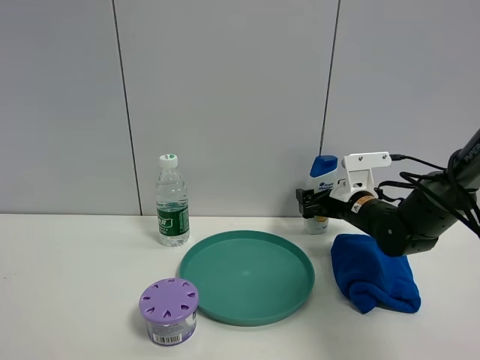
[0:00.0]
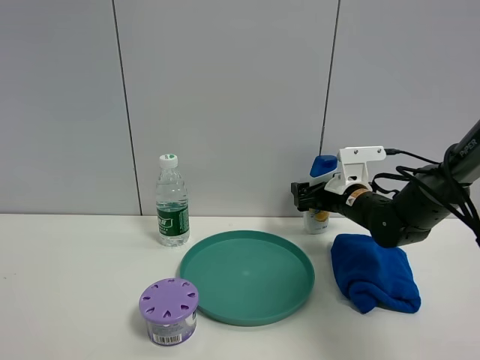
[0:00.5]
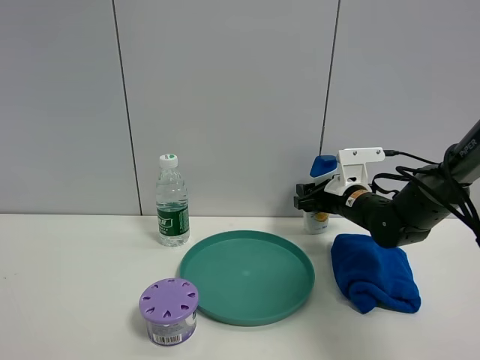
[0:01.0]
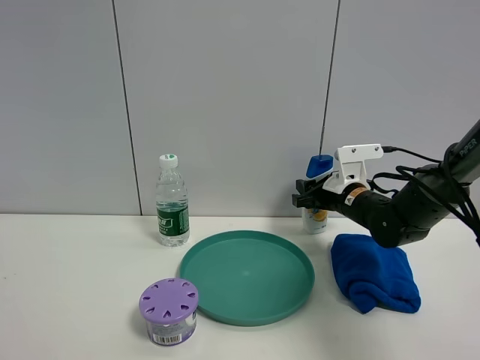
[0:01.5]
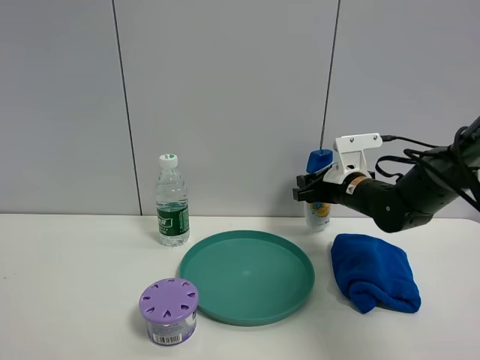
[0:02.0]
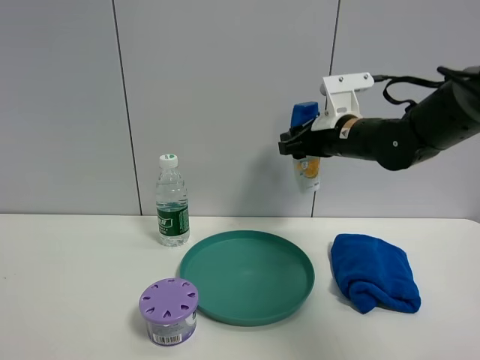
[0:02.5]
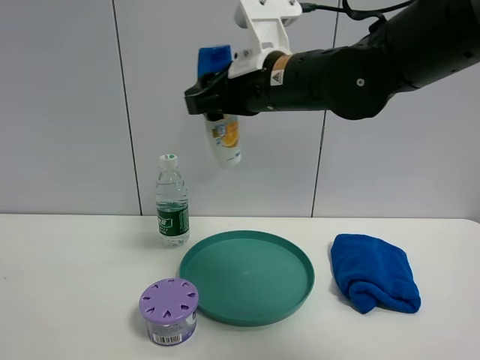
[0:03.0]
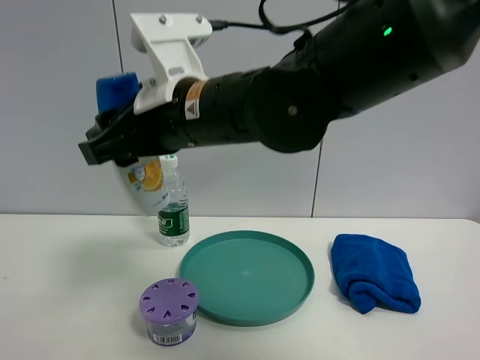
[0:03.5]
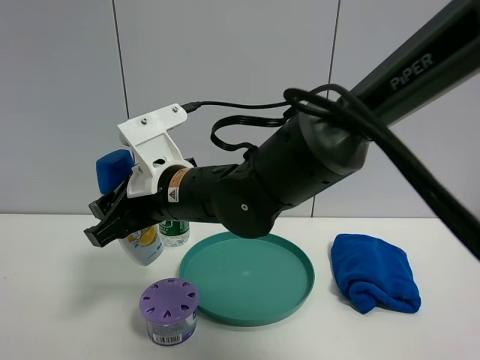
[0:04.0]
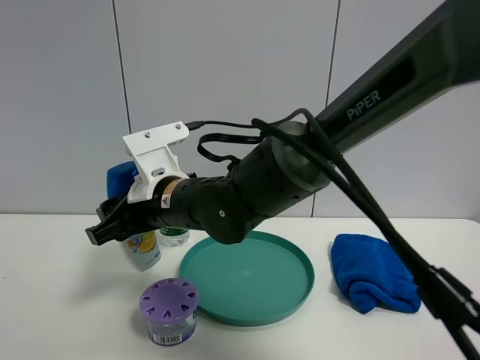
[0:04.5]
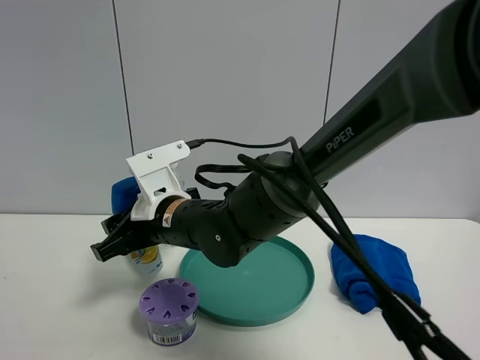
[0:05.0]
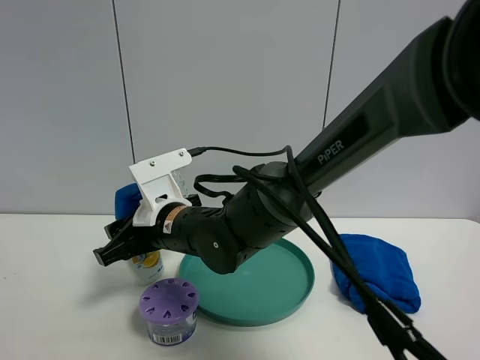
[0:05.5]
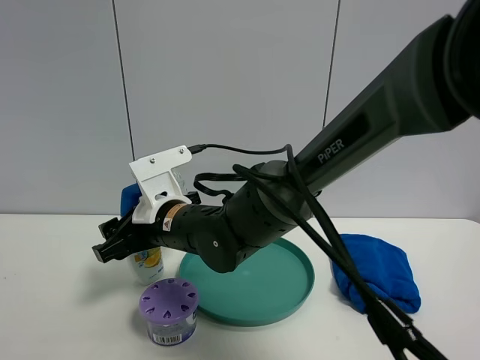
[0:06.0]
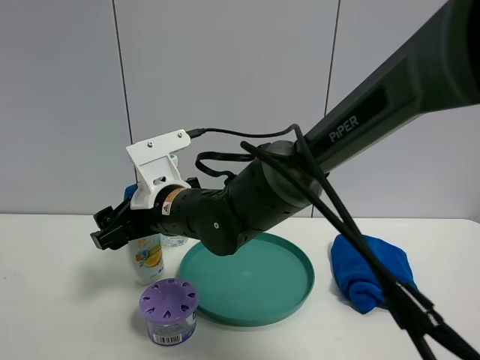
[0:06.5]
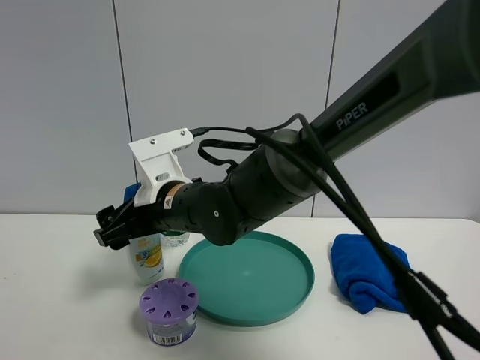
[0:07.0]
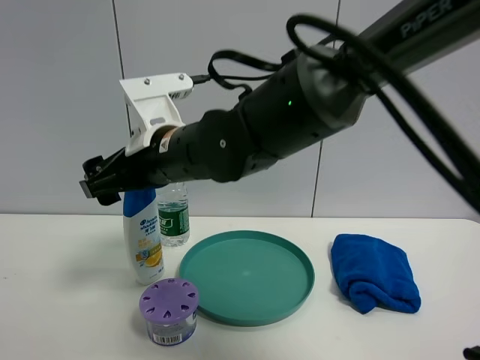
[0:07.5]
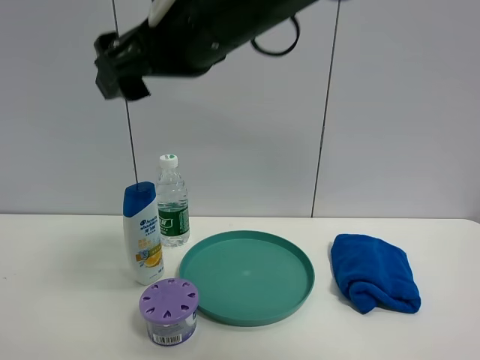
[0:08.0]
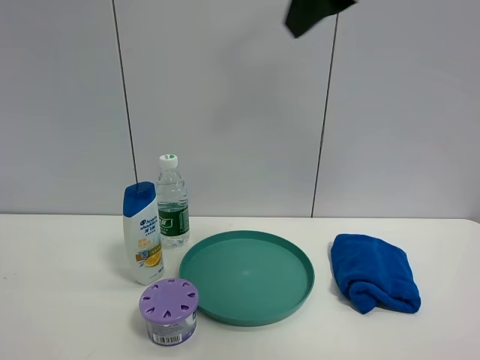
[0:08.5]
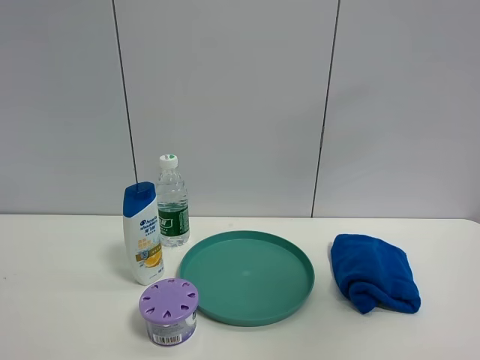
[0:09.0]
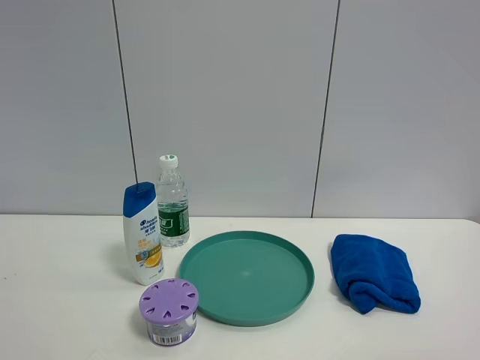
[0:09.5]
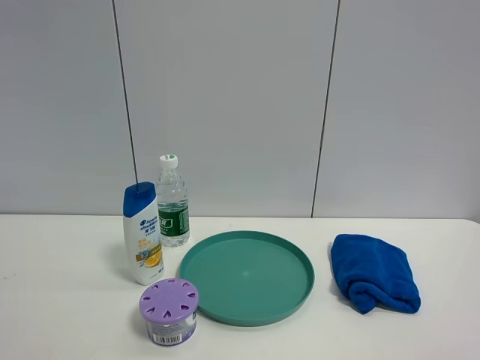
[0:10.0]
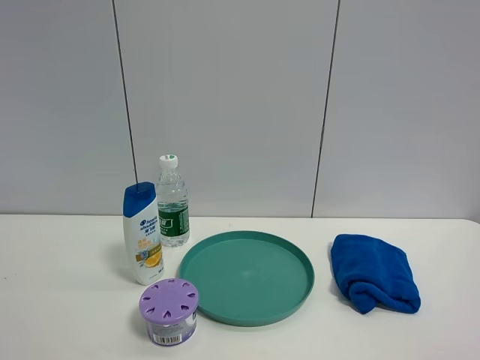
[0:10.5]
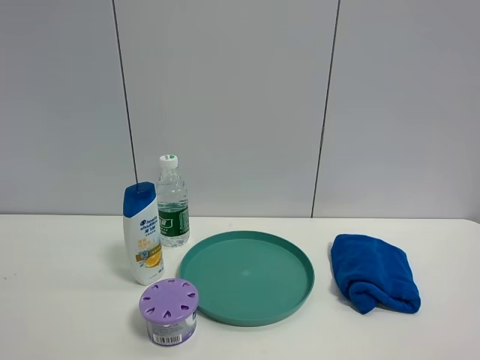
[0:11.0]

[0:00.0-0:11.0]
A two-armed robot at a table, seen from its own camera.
Task of the whole recording: the gripper move the object.
Step, 0:01.5 to 0:07.0: Place the shampoo on the table with the right gripper.
0:00.0 to 0:02.0: The right gripper closes its fingers.
0:02.0 to 0:03.5: The right gripper moves to the left, backward and upward, approximately 30 cm.
0:03.5 to 0:05.5: The right gripper shifts roughly 15 cm downward.
0:05.5 to 0:07.5: The right gripper goes roughly 10 cm upward, and opens.
0:07.5 to 0:09.0: The right gripper is displaced to the right, upward and backward by roughly 40 cm.
0:09.0 to 0:11.0: The right gripper travels backward and downward by about 20 cm.

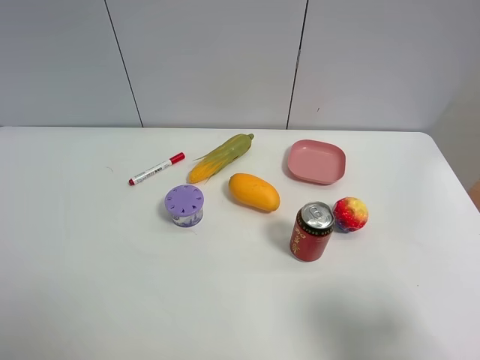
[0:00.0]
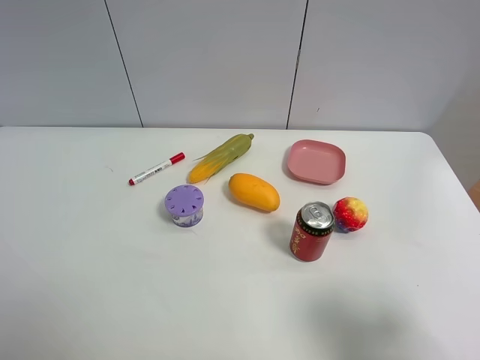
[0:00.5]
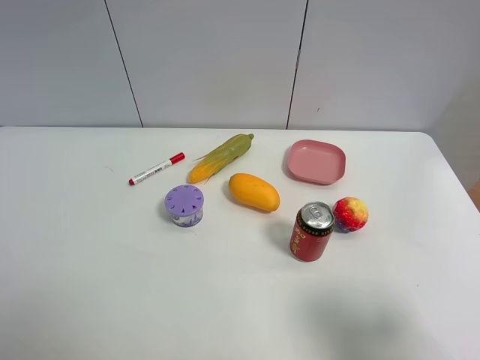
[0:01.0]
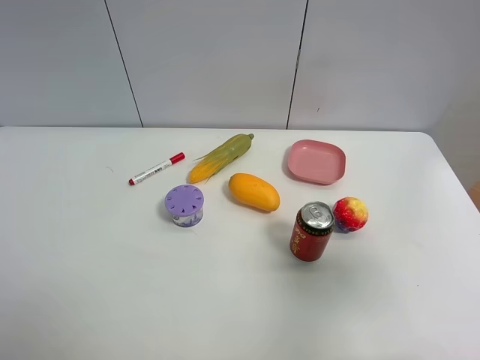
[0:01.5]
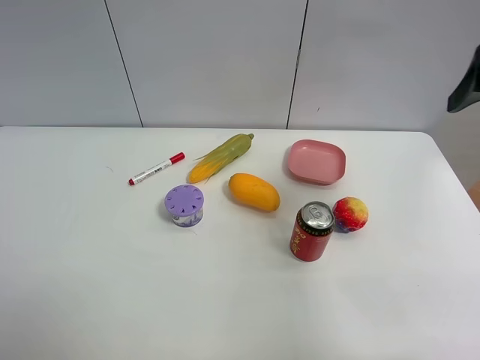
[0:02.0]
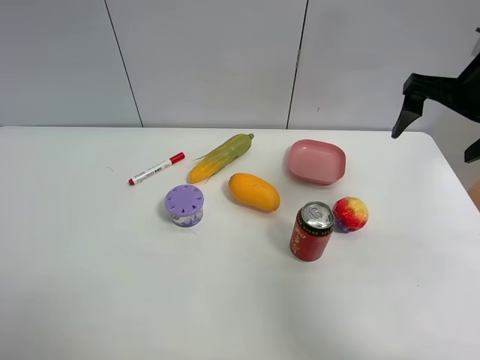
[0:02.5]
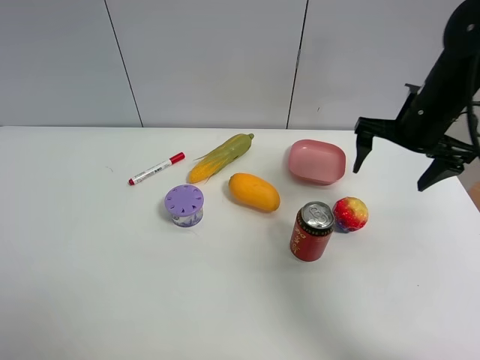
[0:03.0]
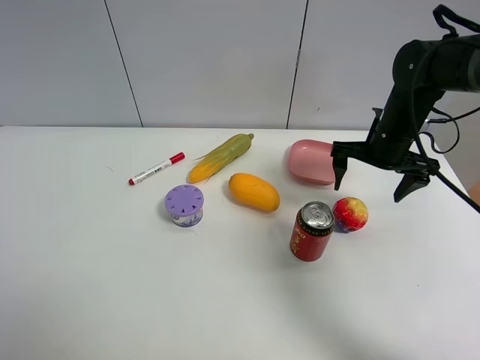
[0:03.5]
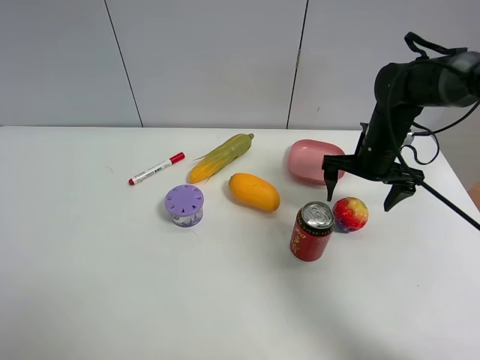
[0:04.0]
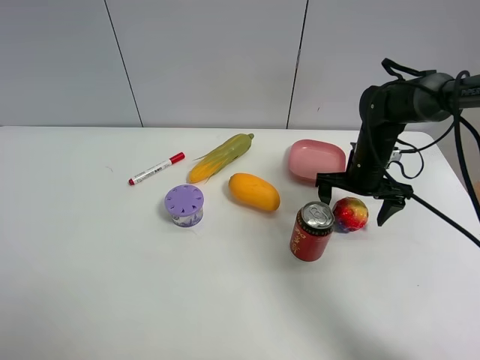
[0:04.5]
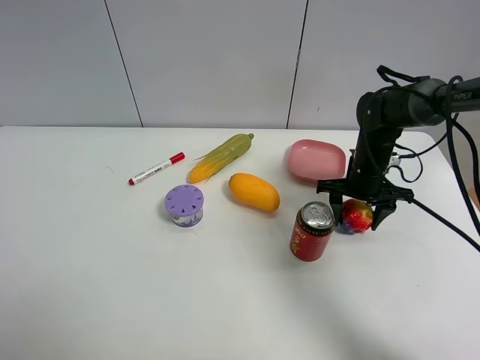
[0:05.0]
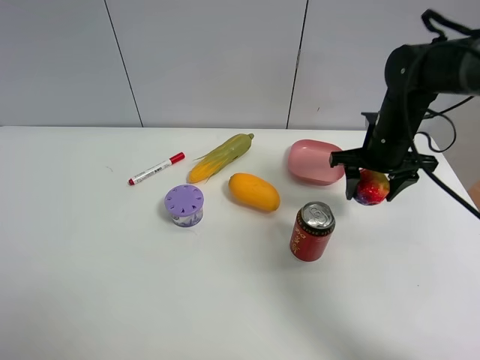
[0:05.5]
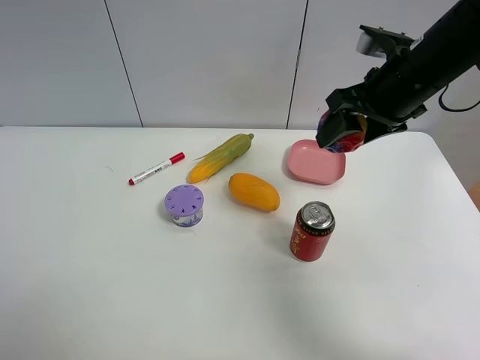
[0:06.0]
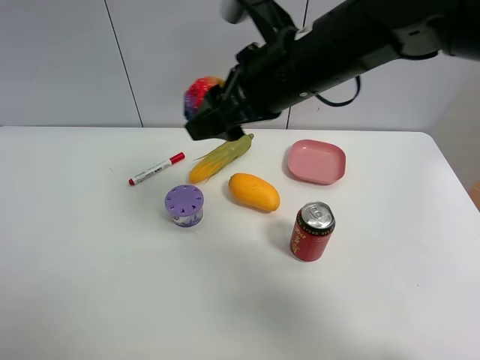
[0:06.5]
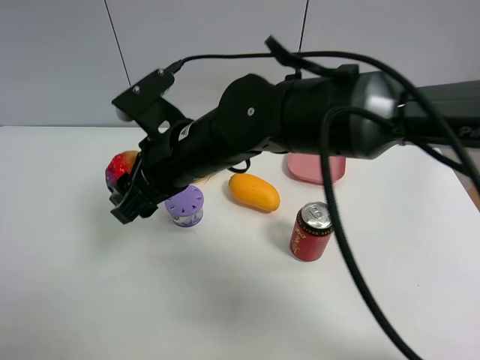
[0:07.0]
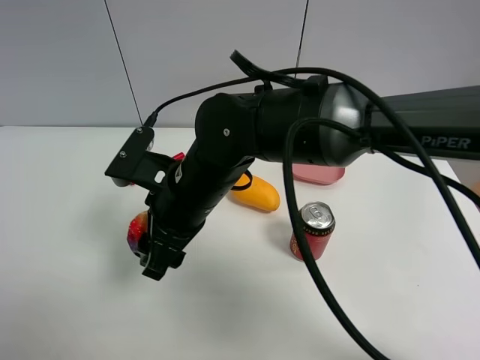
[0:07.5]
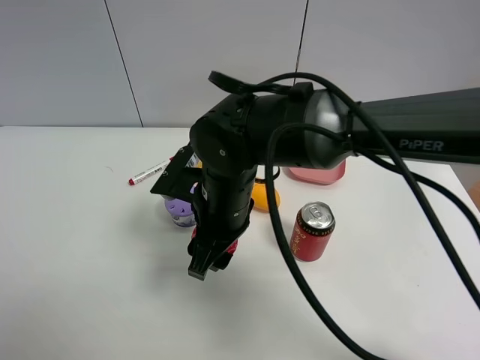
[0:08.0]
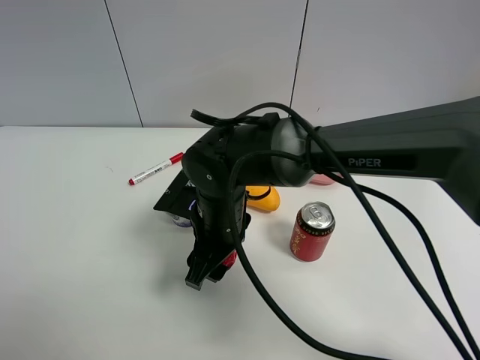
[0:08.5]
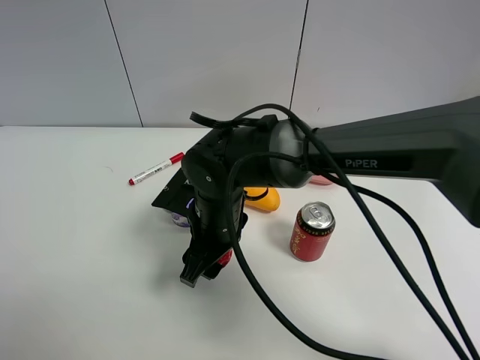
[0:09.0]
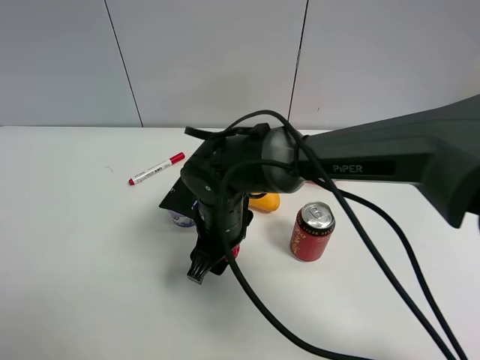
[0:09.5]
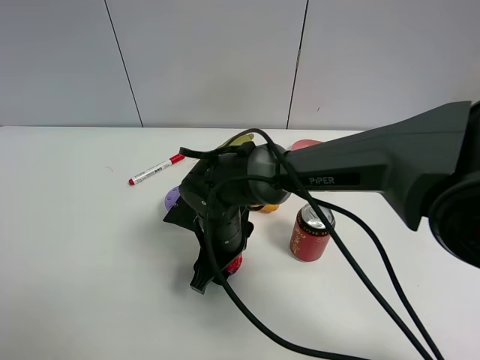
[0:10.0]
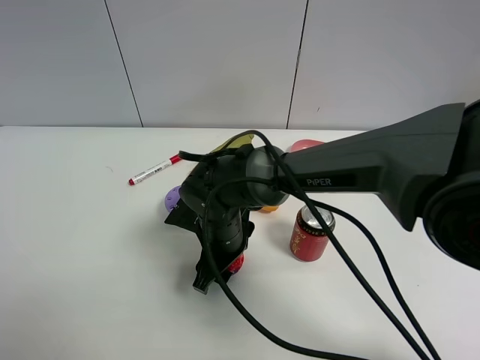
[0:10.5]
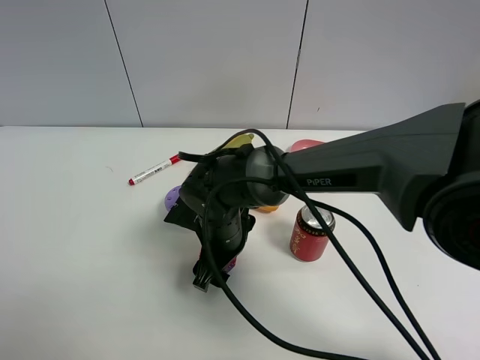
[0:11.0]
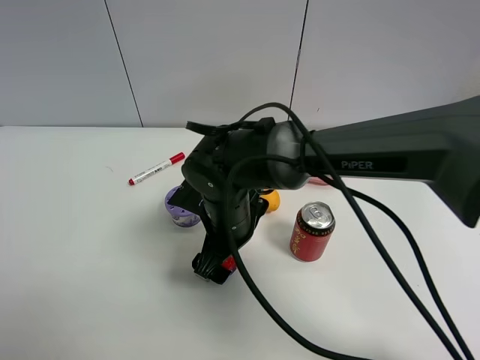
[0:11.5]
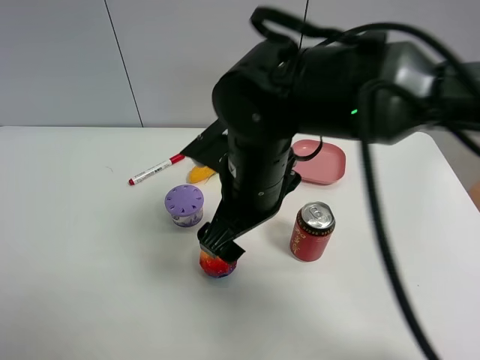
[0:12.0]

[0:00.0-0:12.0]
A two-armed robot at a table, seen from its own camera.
Task of the whole recording: the gripper move the object.
Step, 0:00.0 to 0:04.5: Grasp the colorful ball with the right gripper.
Step, 0:05.0 to 0:12.0: Place the colorful ball on the table with the right gripper.
0:00.0 to 0:02.0: The right gripper is displaced forward and upward by approximately 25 cm.
0:02.0 to 0:04.0: The right gripper travels downward and forward by about 25 cm.
0:04.0 to 0:06.0: The right gripper heads upward, covering some 15 cm, and closes its fingers.
0:06.0 to 0:08.0: The right gripper heads to the left and downward, covering approximately 25 cm.
0:08.0 to 0:10.0: The right gripper shifts some 10 cm downward.
0:10.0 to 0:12.0: The right gripper is displaced upward by approximately 15 cm, and opens up.

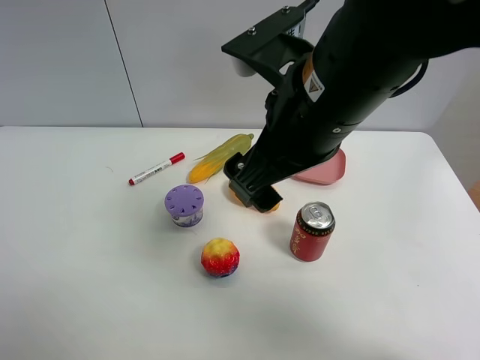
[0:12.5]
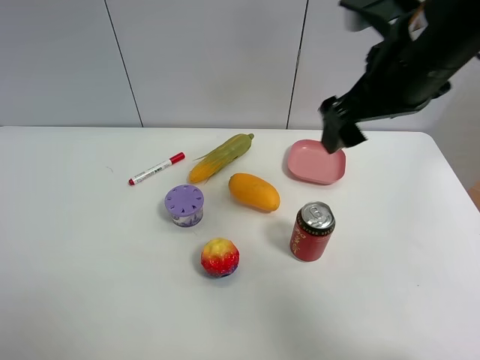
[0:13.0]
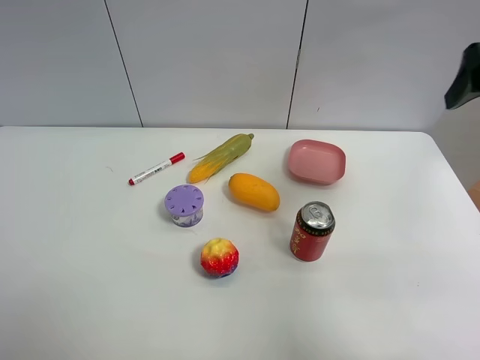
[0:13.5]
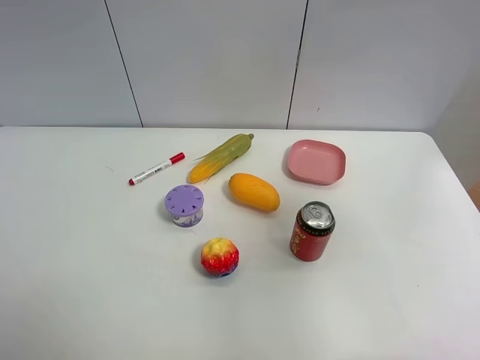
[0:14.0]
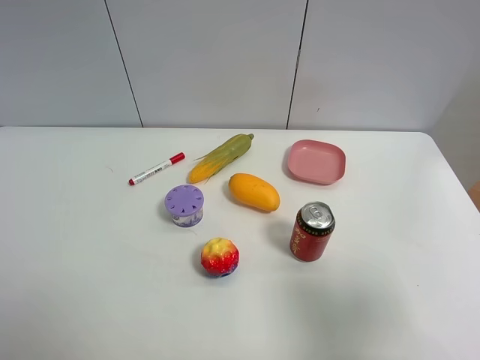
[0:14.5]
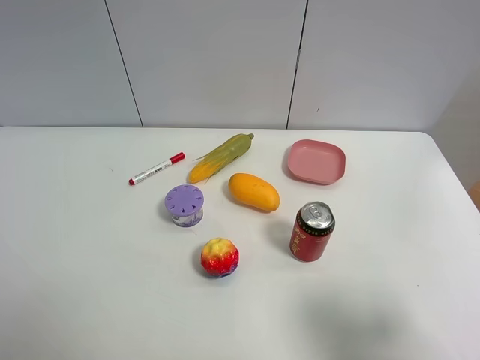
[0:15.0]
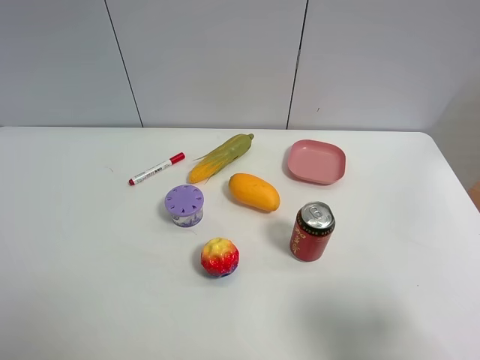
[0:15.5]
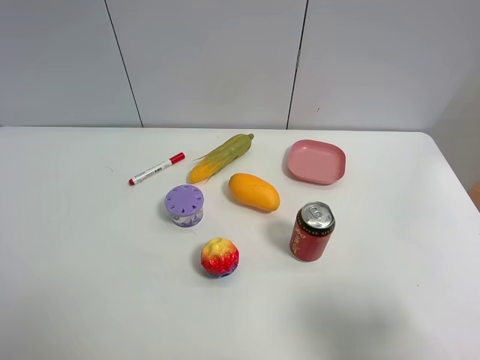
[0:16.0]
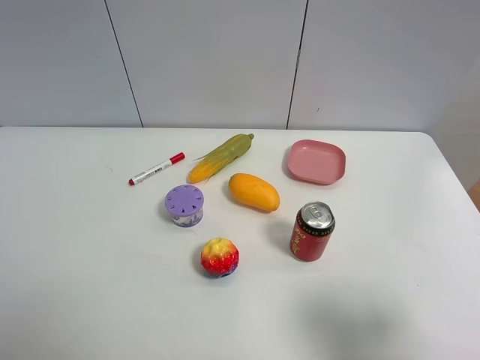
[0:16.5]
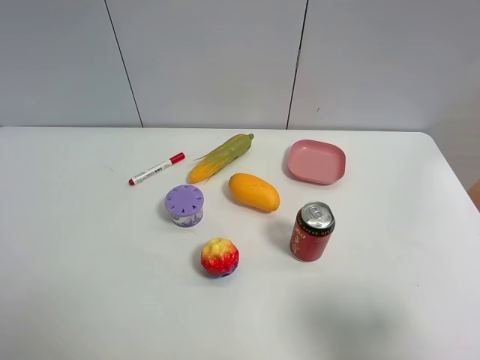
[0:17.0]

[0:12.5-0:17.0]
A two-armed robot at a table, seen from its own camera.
Task of the whole recording: the gripper move the object.
0:12.5 to 0:14.5: The right gripper moves to the right and backward, some 30 cm.
0:14.5 to 0:17.0: The right gripper travels downward by roughly 5 cm.
